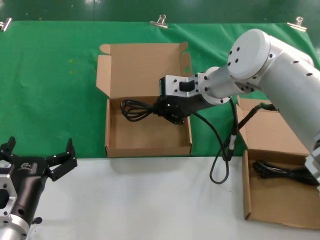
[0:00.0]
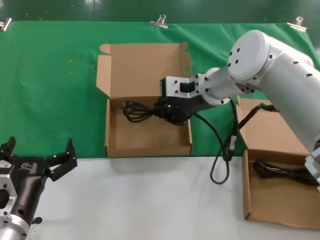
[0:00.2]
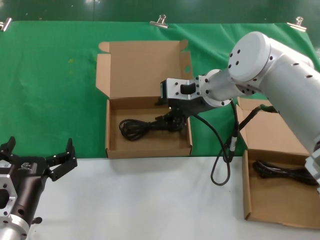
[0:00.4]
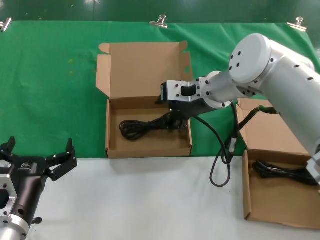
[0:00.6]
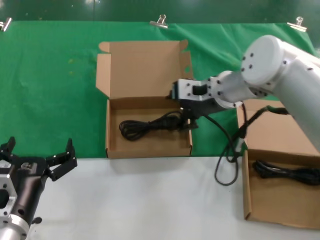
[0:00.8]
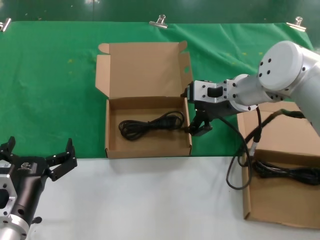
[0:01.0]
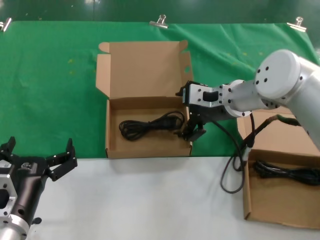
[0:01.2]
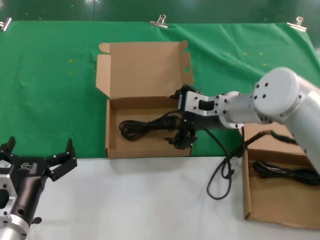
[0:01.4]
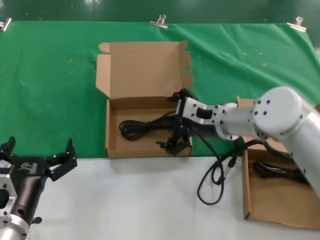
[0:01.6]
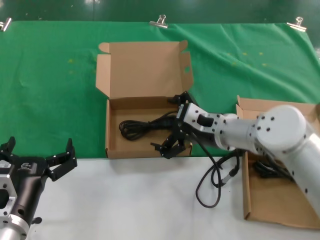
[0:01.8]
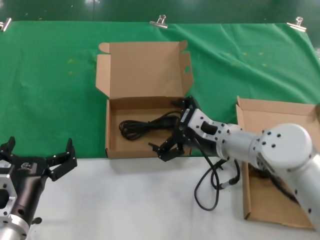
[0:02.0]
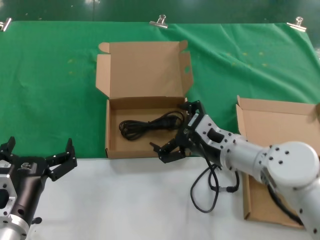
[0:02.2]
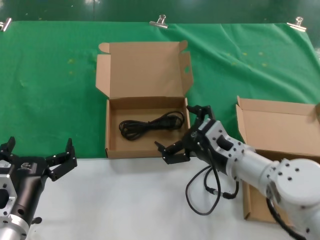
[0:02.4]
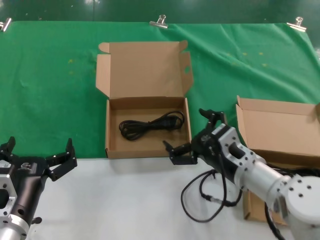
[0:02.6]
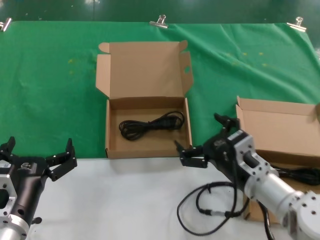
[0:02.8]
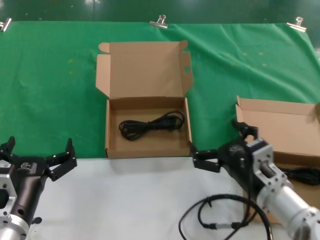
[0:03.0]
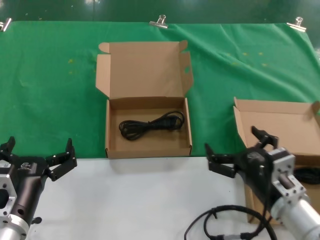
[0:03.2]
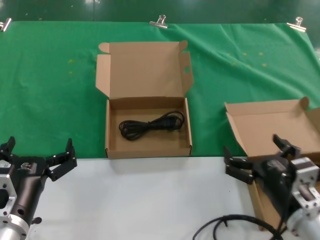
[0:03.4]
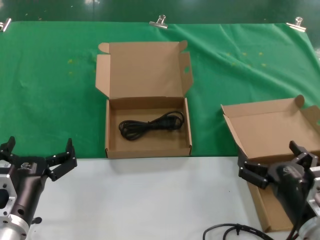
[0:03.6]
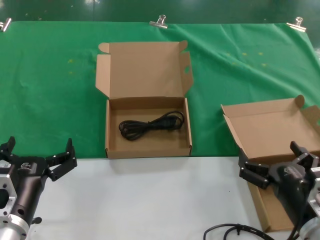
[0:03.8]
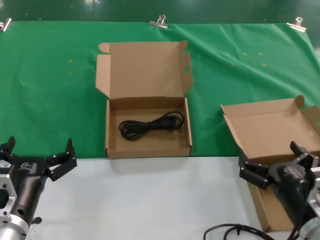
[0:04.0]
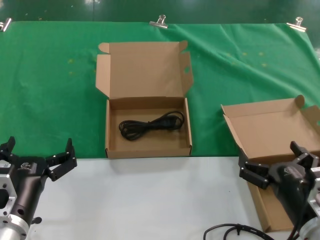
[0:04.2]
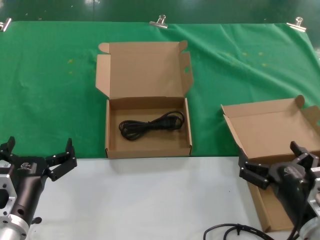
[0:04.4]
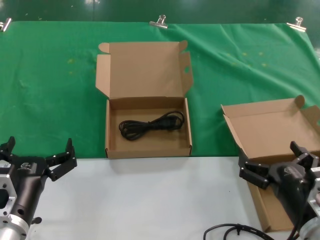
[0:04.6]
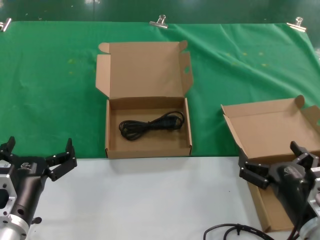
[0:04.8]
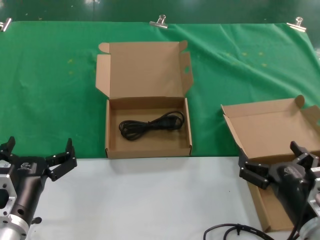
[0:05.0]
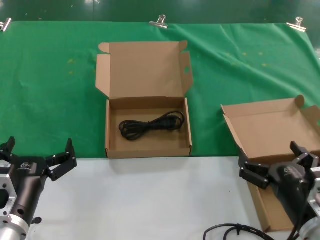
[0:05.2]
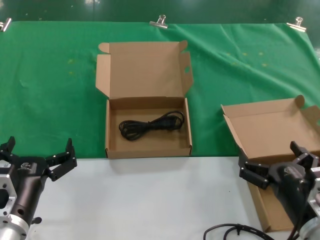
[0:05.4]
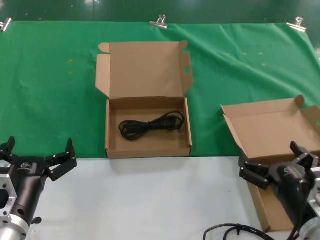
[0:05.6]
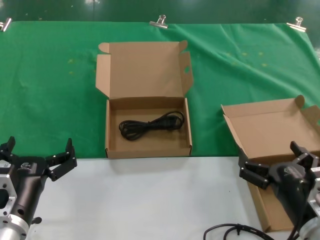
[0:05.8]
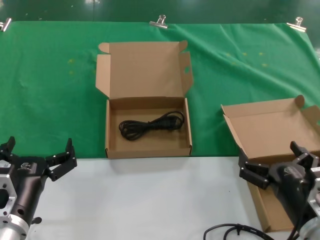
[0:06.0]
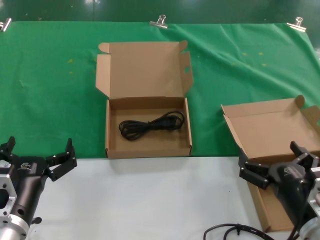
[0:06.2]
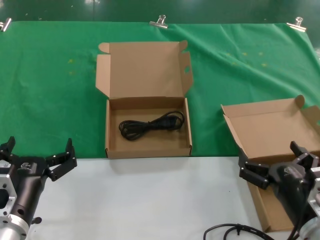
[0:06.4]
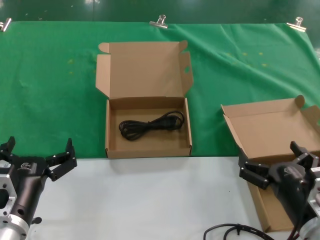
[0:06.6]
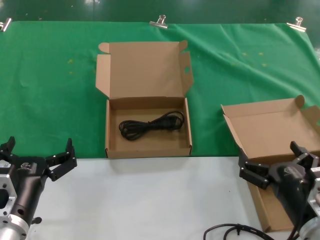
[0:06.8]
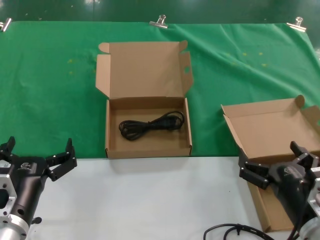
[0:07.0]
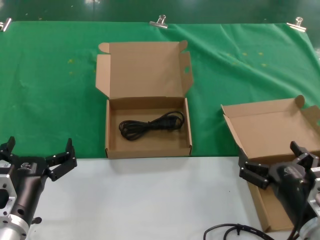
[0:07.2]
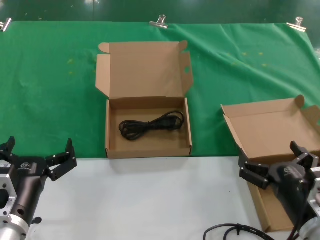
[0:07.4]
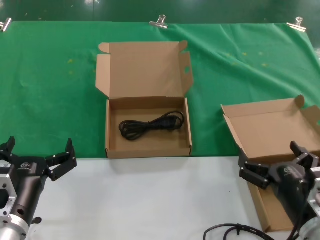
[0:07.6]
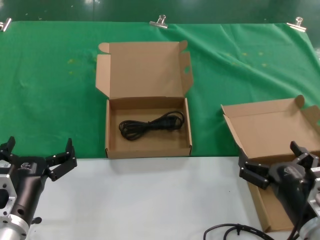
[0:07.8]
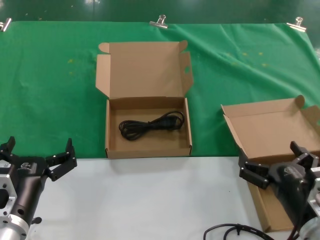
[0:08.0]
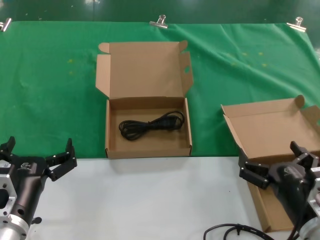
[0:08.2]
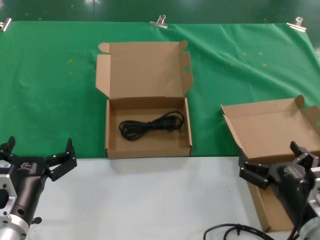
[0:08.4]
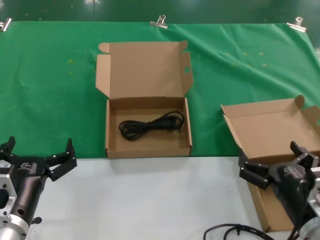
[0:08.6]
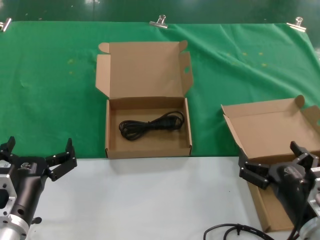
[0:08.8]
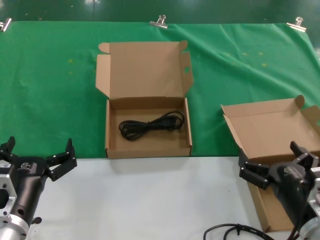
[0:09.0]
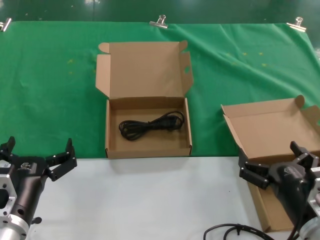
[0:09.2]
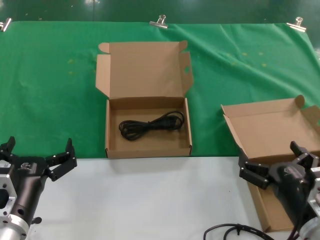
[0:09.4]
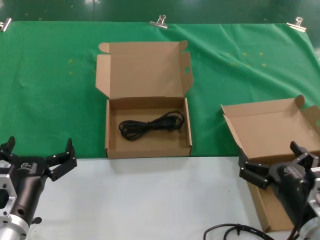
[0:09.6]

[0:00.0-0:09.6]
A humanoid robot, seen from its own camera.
Task of the whole recording: take the parts from the box containing them and put them into an empty box.
0:00.0 to 0:01.6: The right hand heads downward, covering roughly 10 cm.
0:01.6 to 0:03.2: The right hand heads backward, downward and to the right, covering some 20 cm.
0:03.2 to 0:04.8: The right hand moves backward, some 5 cm.
0:04.8 to 0:09.6: Both hands stay about where they are.

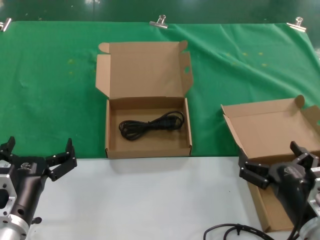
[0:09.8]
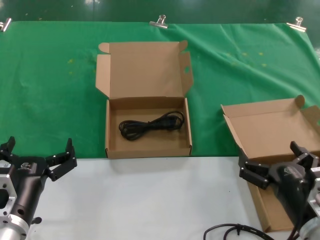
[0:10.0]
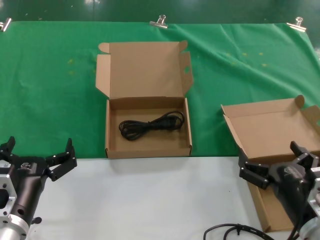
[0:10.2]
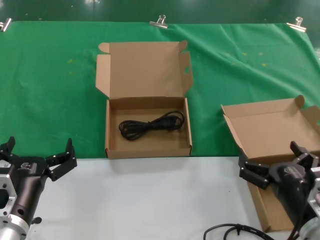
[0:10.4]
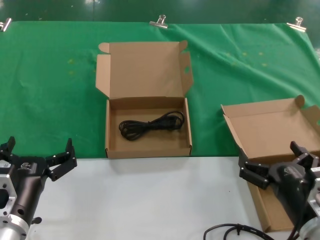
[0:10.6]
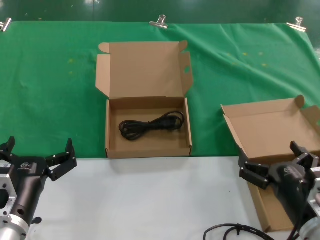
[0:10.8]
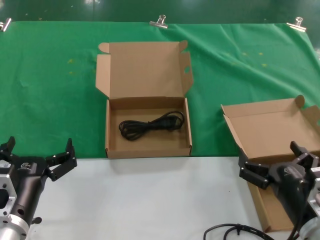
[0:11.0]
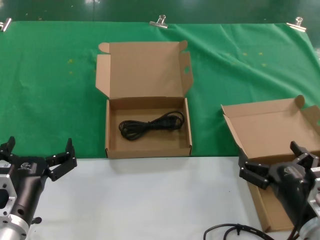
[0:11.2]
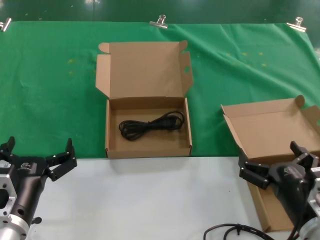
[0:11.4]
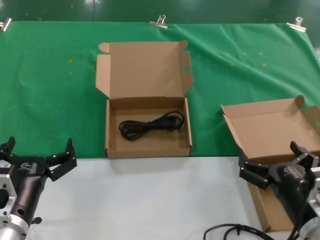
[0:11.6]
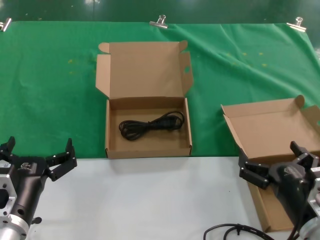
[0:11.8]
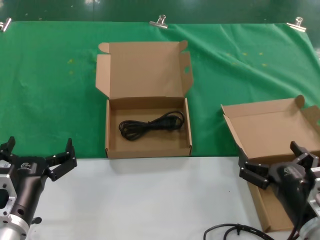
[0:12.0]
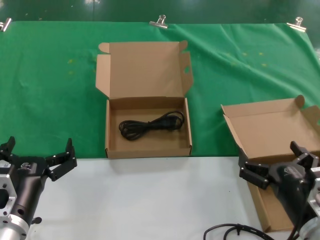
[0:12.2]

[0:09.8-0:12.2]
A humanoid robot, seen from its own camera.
Task of the whole recording: take the parts from the box containing them and put them into an empty box.
0:09.8 to 0:12.2: Neither hand changes place.

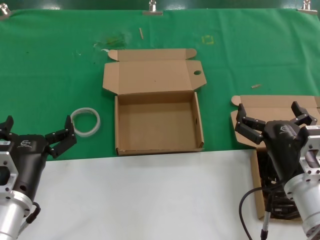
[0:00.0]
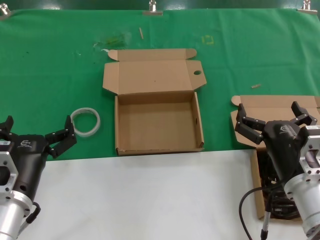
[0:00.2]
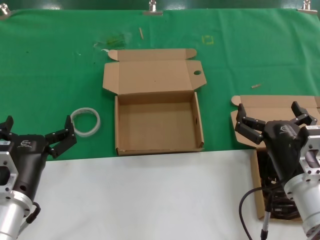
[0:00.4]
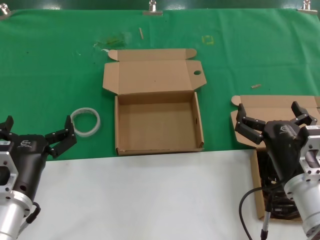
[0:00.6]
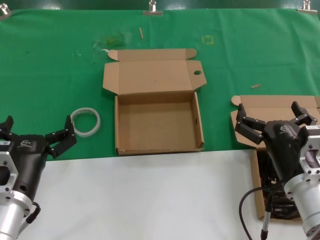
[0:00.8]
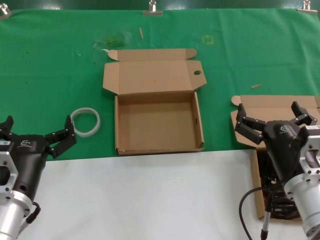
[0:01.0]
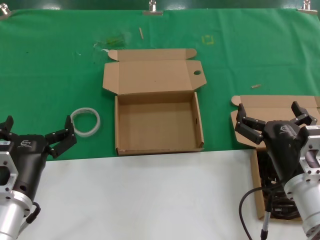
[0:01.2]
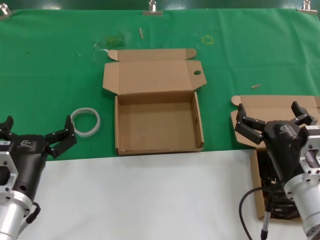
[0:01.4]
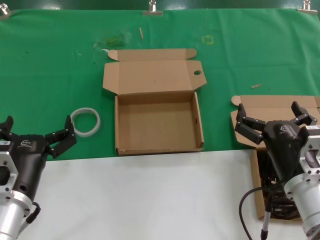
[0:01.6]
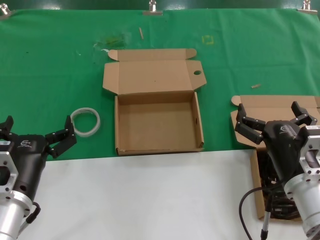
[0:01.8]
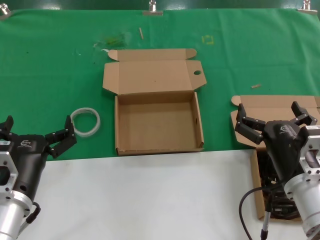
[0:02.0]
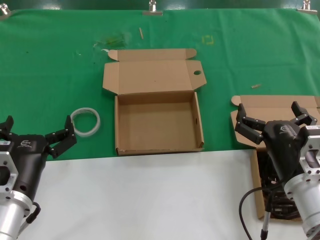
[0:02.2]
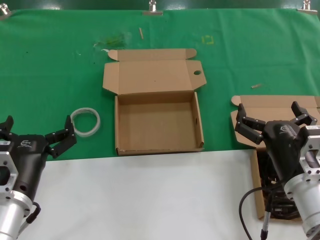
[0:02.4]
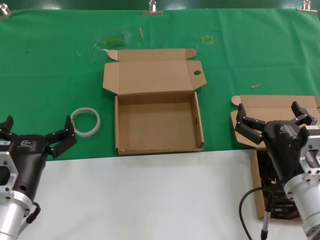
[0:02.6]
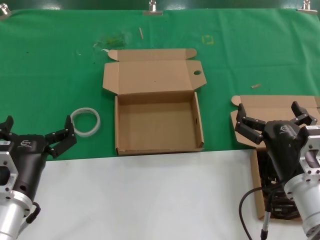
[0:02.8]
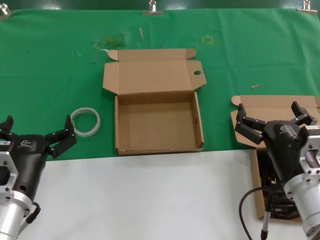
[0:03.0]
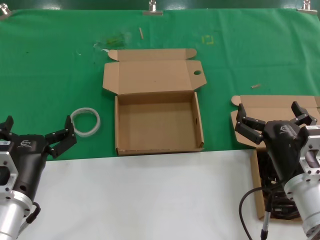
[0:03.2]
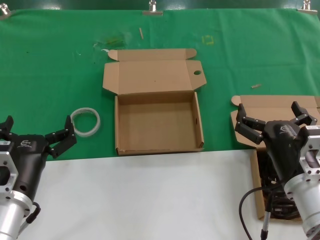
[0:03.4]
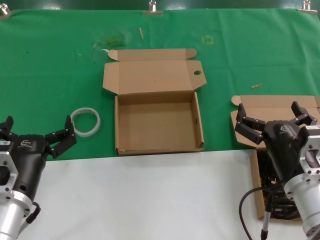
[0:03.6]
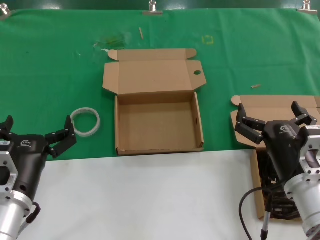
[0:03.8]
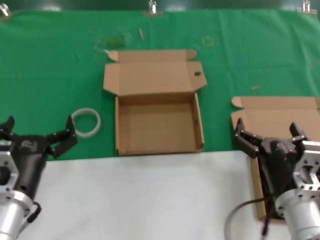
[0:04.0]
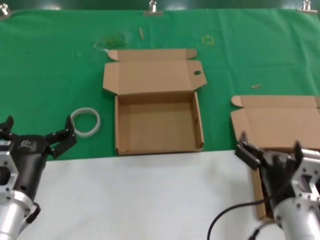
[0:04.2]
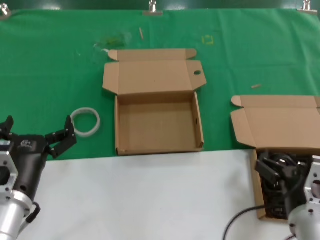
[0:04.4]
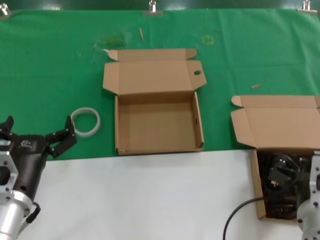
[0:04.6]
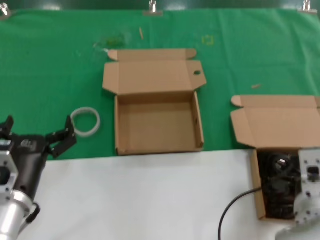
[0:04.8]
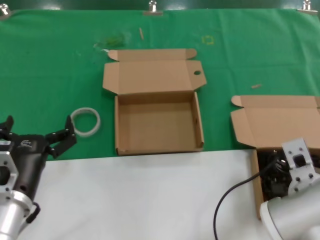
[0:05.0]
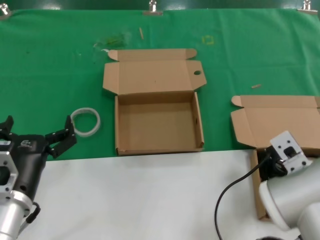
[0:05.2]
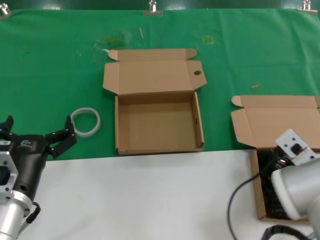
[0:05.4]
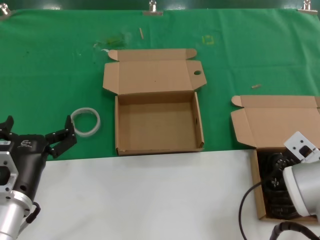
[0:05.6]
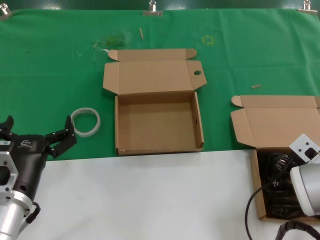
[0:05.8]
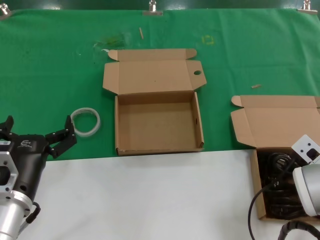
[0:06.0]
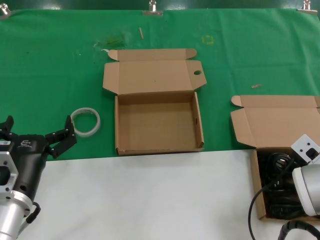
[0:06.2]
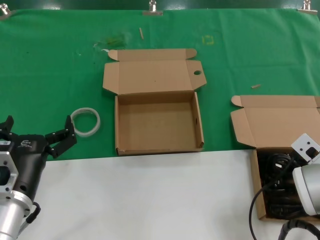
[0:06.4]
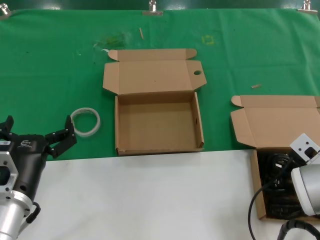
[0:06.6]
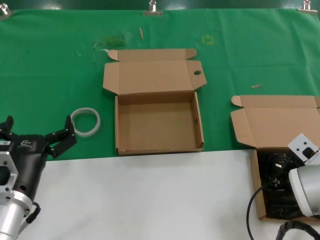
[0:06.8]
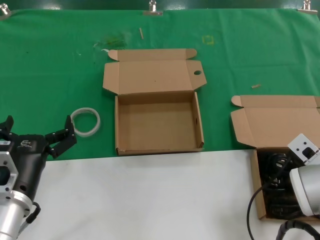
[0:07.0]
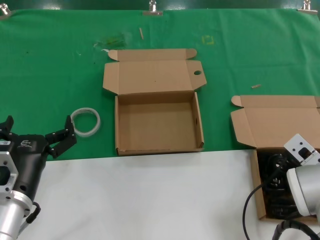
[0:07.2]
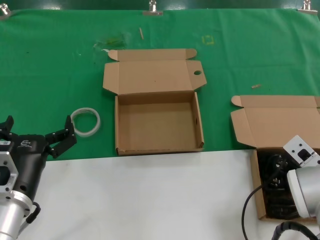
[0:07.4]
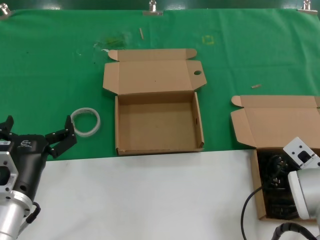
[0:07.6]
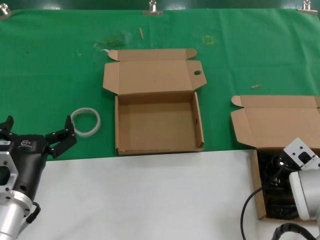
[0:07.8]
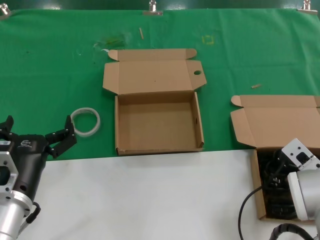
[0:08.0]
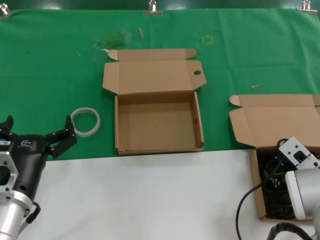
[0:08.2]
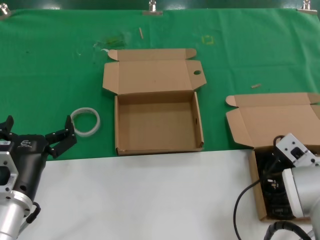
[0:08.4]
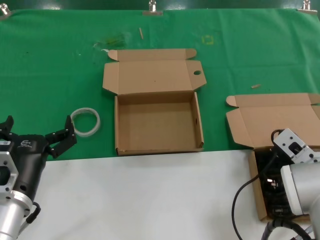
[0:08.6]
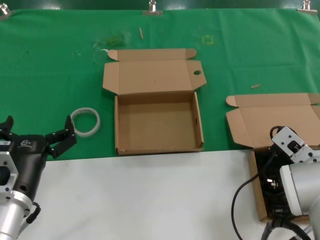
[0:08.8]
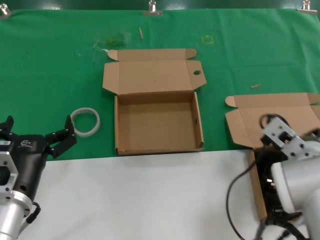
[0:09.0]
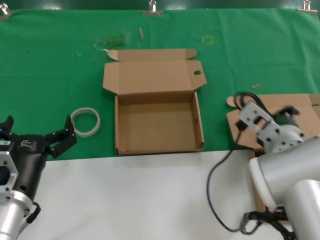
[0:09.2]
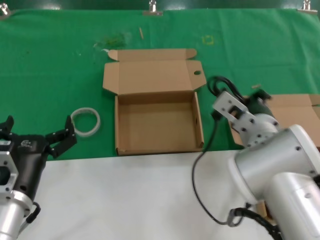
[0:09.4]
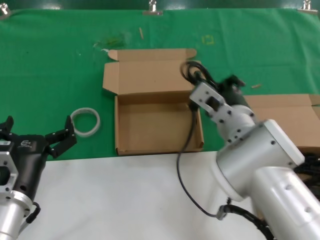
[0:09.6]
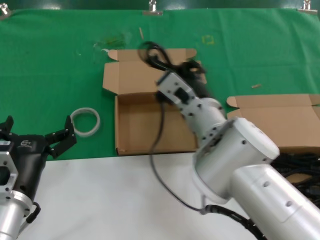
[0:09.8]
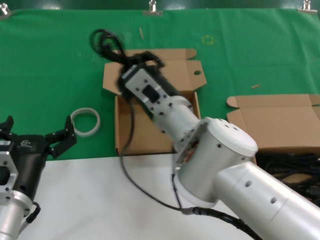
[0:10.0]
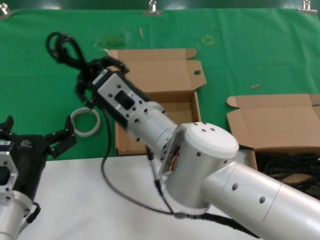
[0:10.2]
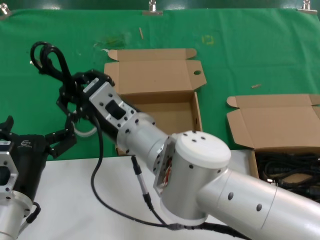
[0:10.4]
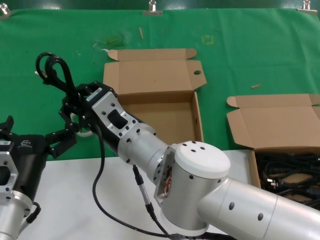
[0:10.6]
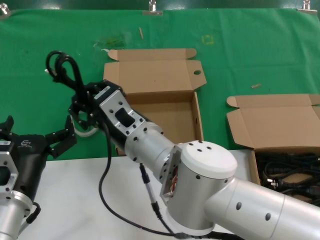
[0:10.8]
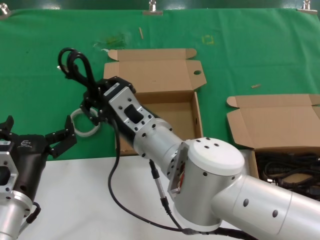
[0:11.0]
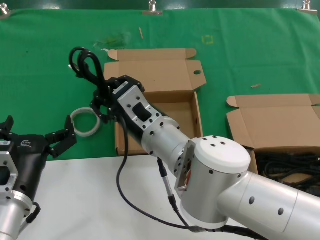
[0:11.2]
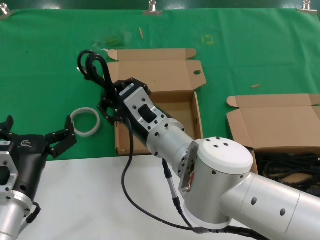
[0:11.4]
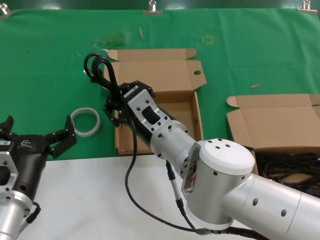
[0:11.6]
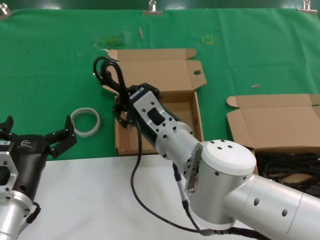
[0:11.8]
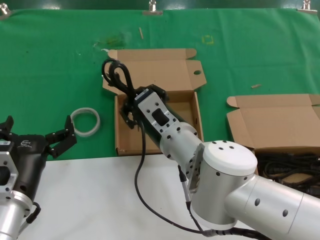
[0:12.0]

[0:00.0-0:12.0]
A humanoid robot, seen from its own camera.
Task of the whole recording: take the parts from the box containing them and put them into an empty box.
Step, 0:00.0 to 0:07.6: Grasp the data cable.
0:00.0 to 0:03.0: Neither hand changes place.
0:03.0 to 0:04.4: The right hand moves backward, some 5 cm.
0:04.4 to 0:06.0: The right hand heads forward and to the right, covering about 15 cm.
0:06.0 to 0:07.6: The hands make only small movements.
0:07.6 to 0:09.0: The right hand changes place by some 5 cm.
0:09.0 to 0:10.4: The right hand moves to the left, about 25 cm.
0:10.4 to 0:12.0: The right hand is displaced to the right by approximately 5 cm.
